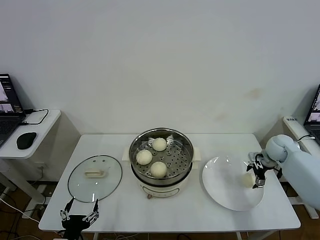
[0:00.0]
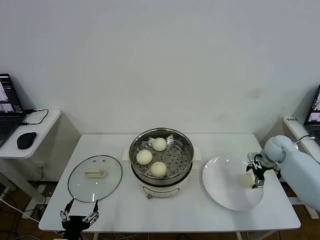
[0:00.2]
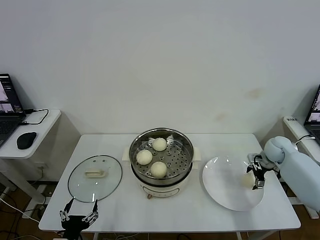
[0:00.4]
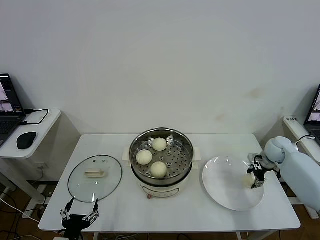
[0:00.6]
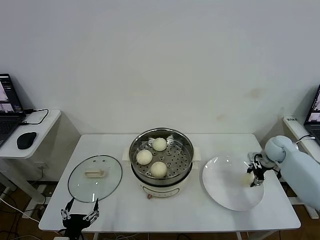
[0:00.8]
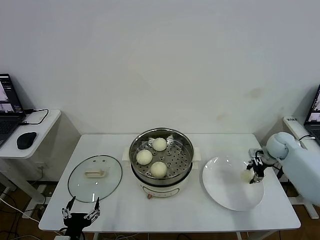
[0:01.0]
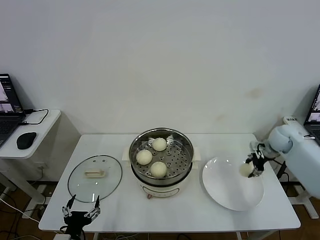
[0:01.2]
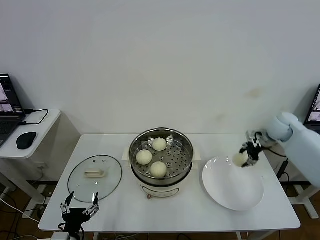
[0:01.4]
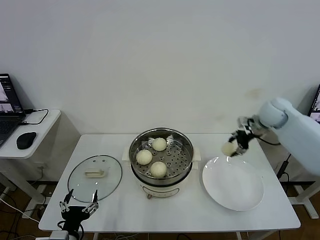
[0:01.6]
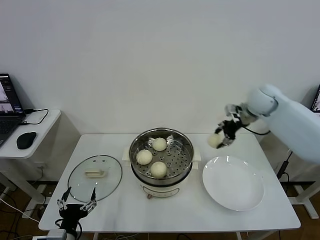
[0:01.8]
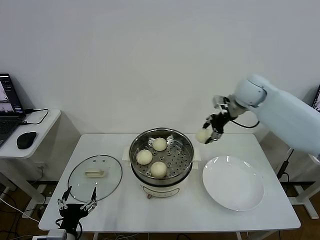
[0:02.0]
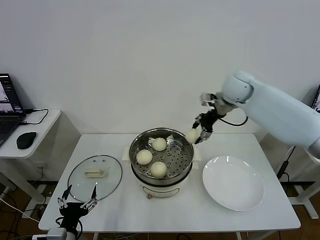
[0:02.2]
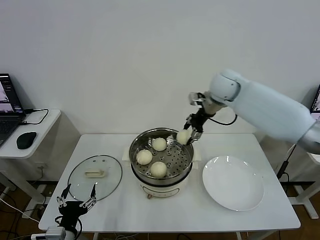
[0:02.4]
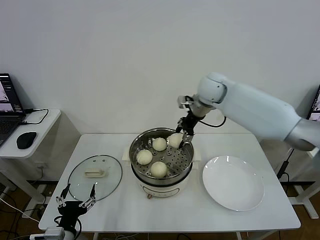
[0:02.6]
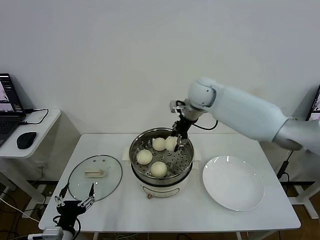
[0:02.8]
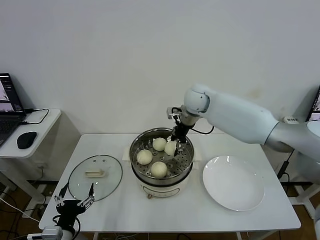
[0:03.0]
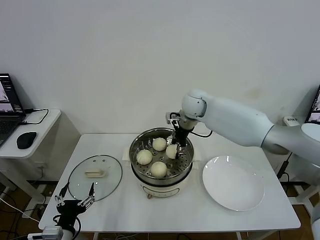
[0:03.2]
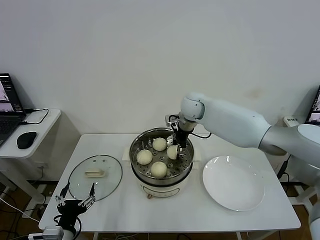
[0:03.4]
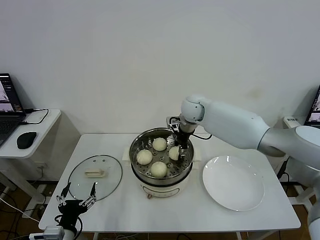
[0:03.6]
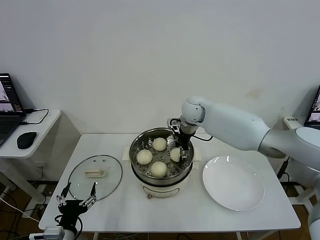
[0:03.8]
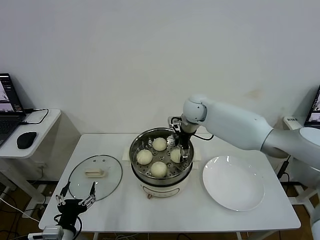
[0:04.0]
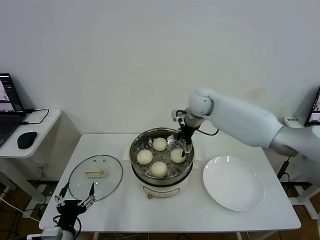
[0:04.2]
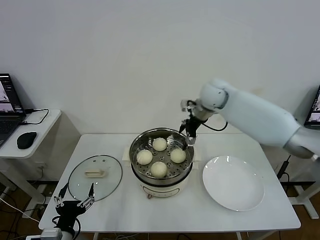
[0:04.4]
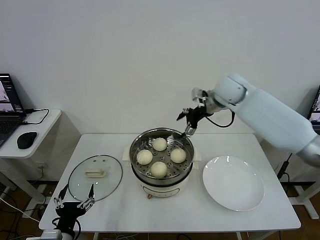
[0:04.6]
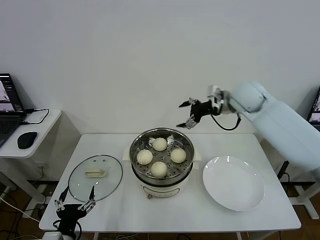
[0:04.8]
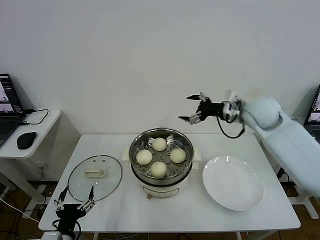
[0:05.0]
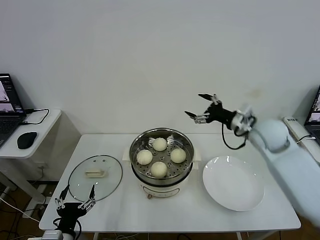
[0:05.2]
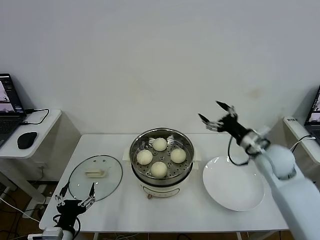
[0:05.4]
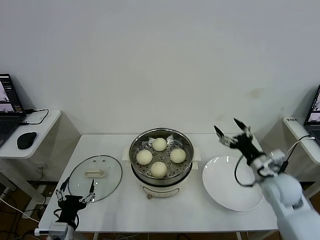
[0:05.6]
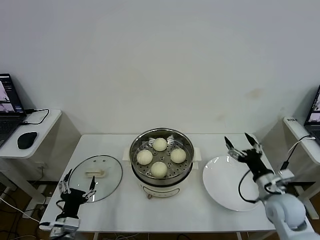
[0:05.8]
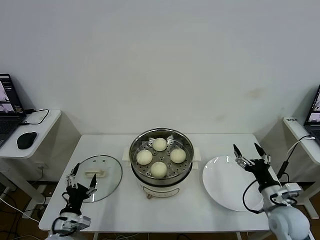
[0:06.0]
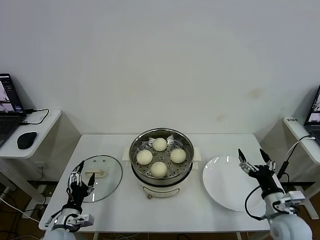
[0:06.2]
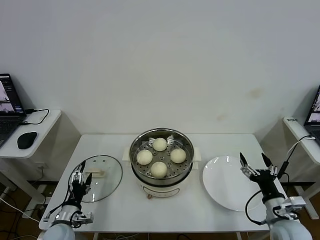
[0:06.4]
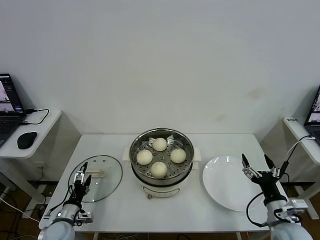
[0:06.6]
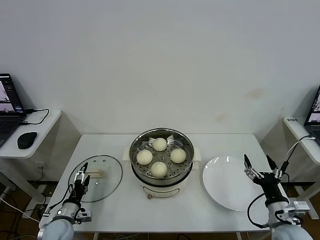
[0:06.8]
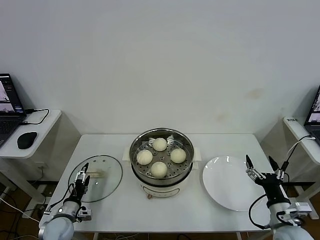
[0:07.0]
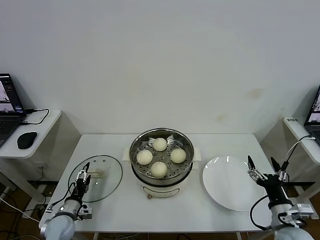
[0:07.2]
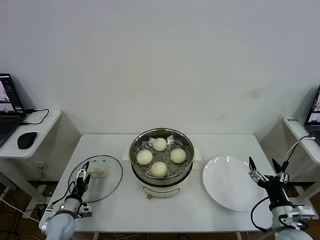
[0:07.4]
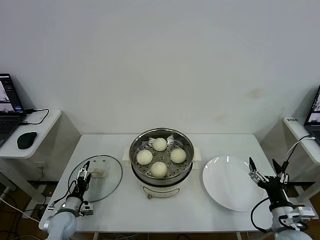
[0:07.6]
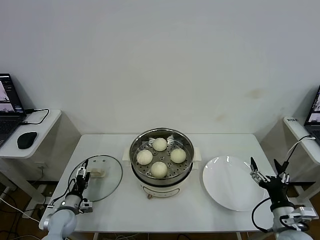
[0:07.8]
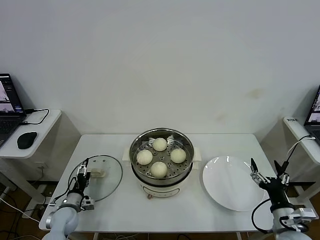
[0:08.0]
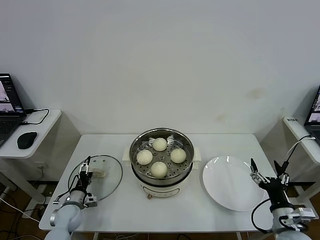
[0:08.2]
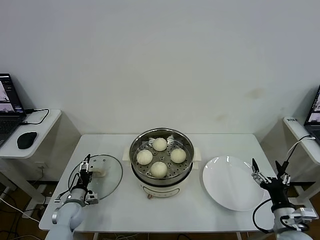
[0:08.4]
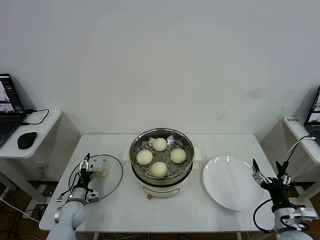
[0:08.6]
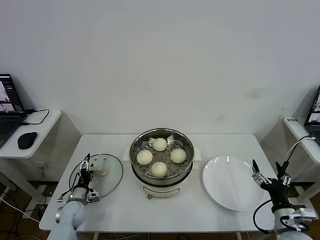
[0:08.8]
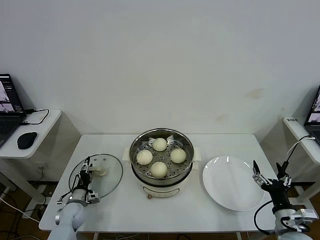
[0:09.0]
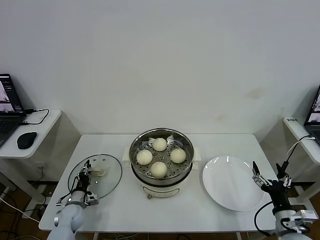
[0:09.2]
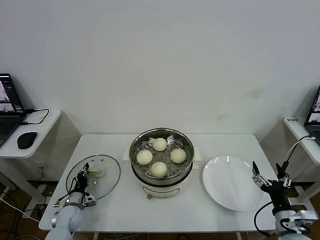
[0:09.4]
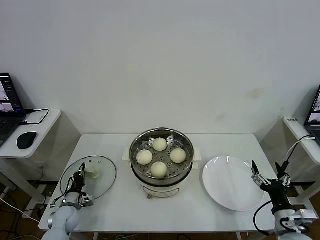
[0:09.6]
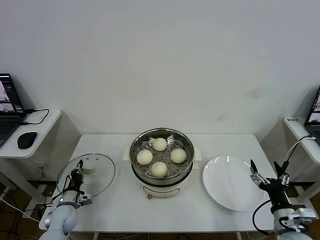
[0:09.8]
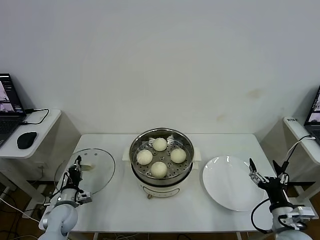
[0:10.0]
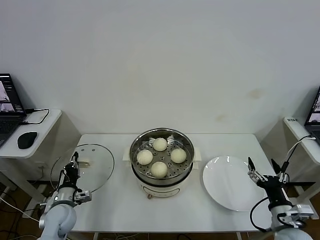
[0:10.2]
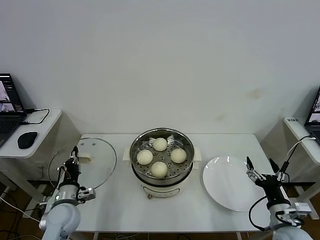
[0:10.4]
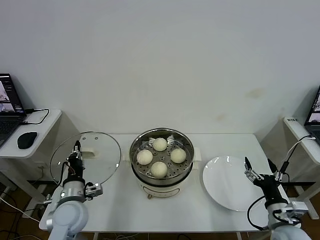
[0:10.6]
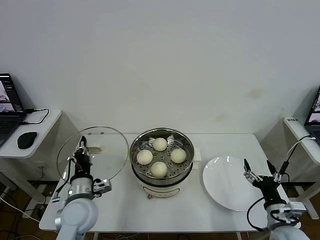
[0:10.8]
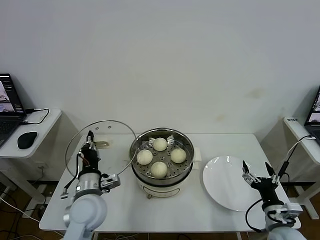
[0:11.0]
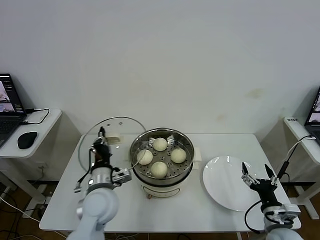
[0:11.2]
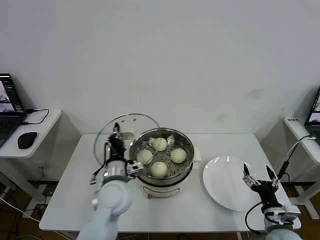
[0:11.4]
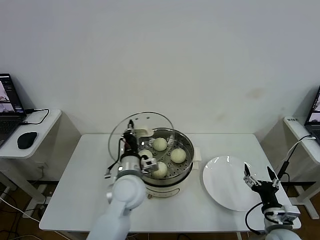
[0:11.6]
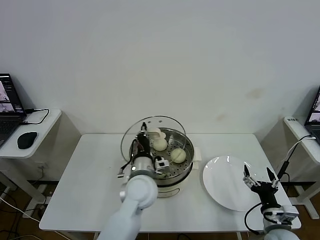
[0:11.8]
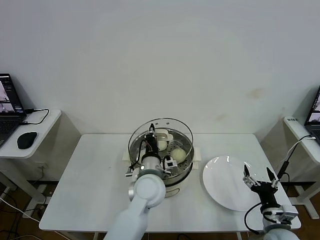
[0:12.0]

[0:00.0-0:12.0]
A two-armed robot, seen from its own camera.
Step, 0:01.0 to 0:04.0: Place the baozi on the steamer with right gripper.
Step, 0:04.2 to 0:09.6: Grasp the pot lid with left gripper.
0:00.0 to 0:01.6: The right gripper travels upward and to the left by roughly 15 cm, and closes.
0:01.6 to 0:03.0: The right gripper travels to the left by roughly 25 cm.
0:03.0 to 0:04.4: The right gripper shifts approximately 5 cm to the right, and opens up.
0:04.4 to 0:06.0: The left gripper moves forward, about 5 cm, while the right gripper shifts roughly 40 cm backward, downward and to the right.
0:06.0 to 0:07.6: The left gripper is displaced forward, downward and to the left by about 15 cm; the right gripper heads backward, covering some 5 cm.
0:07.6 to 0:09.0: The left gripper moves approximately 5 cm.
0:09.0 to 0:10.4: The left gripper moves upward and backward, about 15 cm, and closes its fingers.
0:10.4 to 0:12.0: The left gripper shifts about 30 cm to the right.

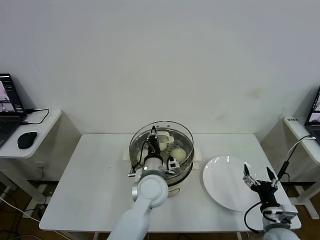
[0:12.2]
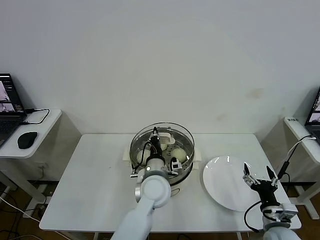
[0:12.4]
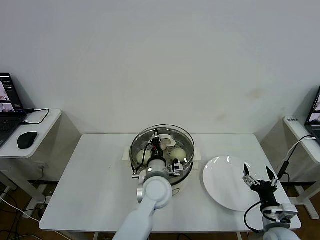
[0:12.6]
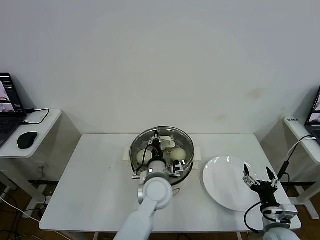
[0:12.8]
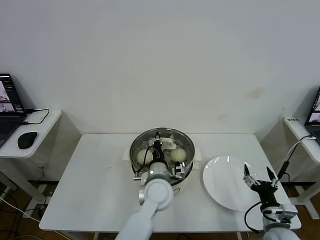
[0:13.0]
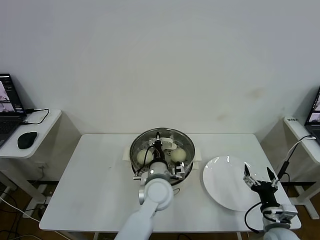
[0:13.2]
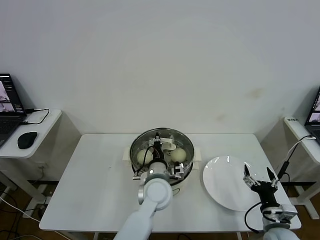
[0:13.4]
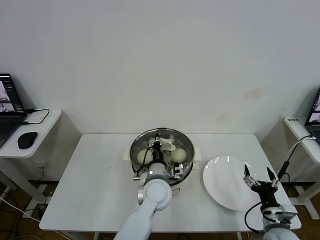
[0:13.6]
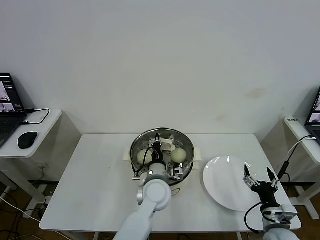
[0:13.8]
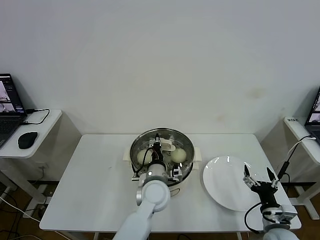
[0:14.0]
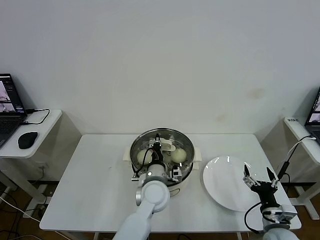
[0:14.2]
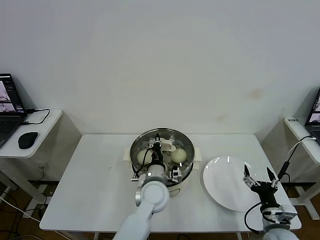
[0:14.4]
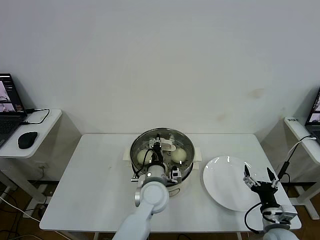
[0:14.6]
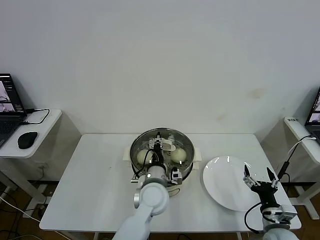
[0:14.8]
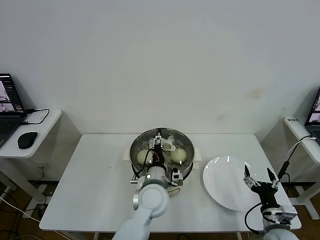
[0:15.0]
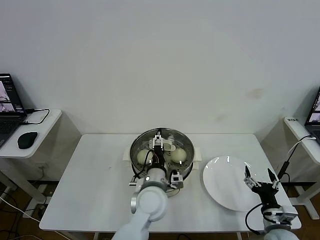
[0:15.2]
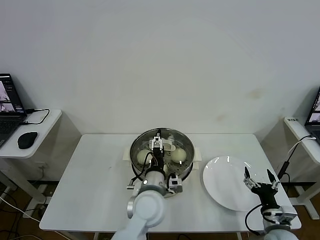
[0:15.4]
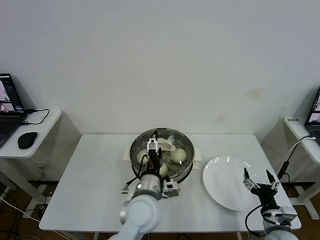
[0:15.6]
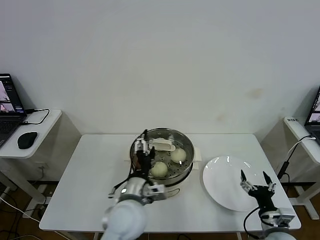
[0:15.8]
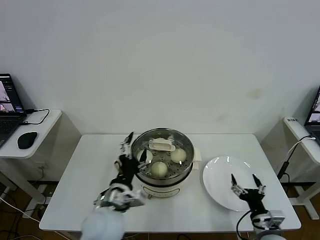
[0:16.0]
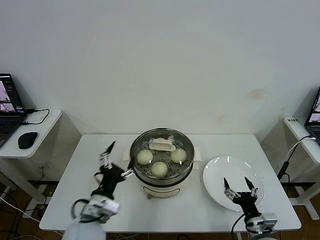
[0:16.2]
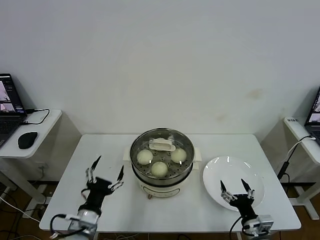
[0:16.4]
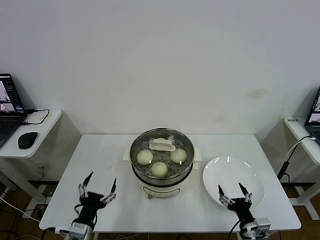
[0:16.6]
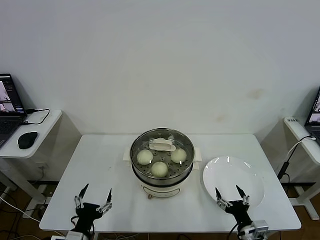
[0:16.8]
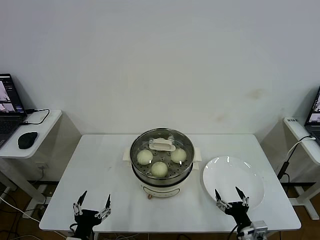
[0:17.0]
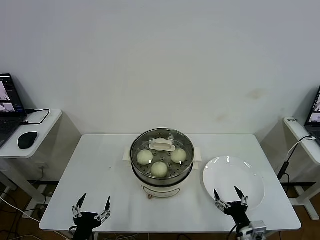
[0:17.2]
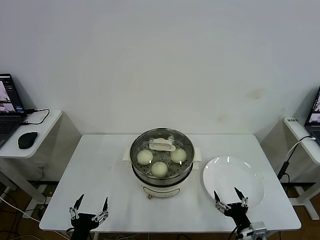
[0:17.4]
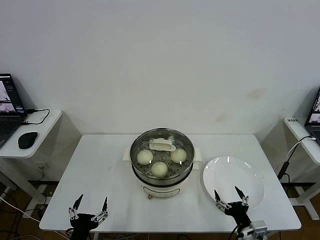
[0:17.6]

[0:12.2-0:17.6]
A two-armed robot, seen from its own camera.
Step, 0:12.2 to 0:14.8: Place the pot lid on the steamer with left gripper.
0:12.2 to 0:13.6: The grippers stay close to where they were, moving slightly.
0:13.6 to 0:15.0: The left gripper opens up.
0:15.0 to 0:16.2: The left gripper is displaced to the left and backward by approximately 20 cm, and opens.
0:16.2 to 0:17.6: The left gripper travels backward, downward and to the left by approximately 15 cm.

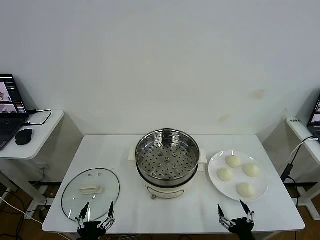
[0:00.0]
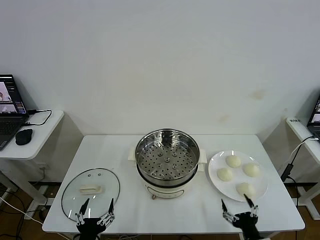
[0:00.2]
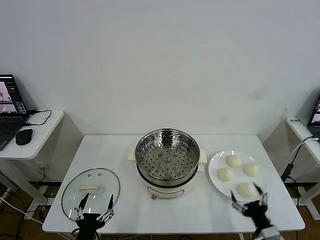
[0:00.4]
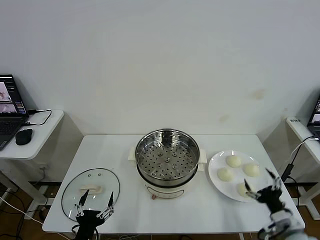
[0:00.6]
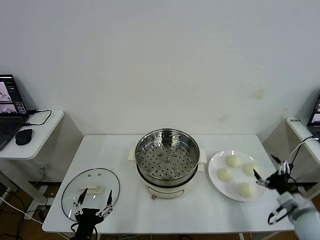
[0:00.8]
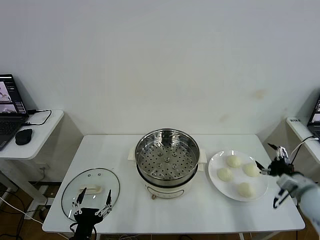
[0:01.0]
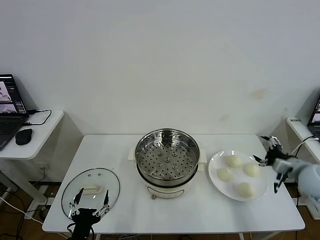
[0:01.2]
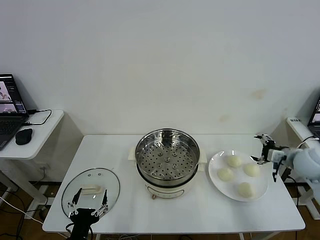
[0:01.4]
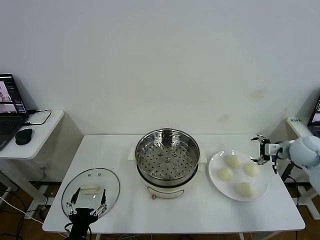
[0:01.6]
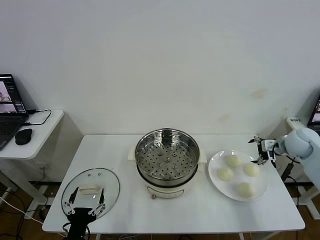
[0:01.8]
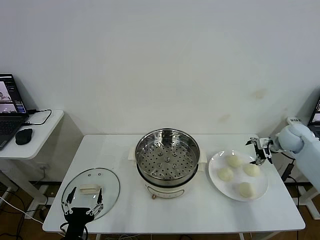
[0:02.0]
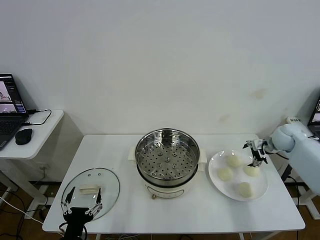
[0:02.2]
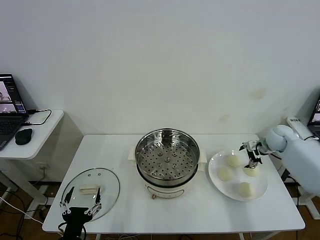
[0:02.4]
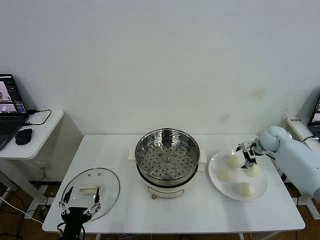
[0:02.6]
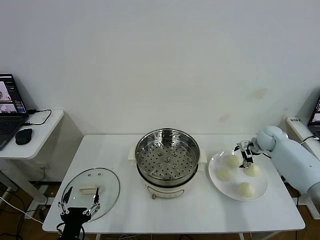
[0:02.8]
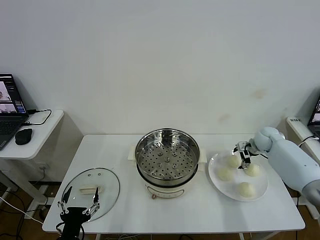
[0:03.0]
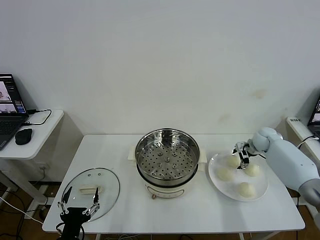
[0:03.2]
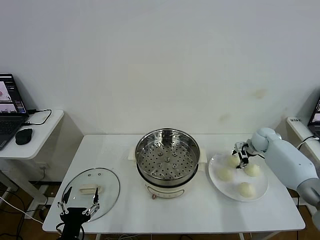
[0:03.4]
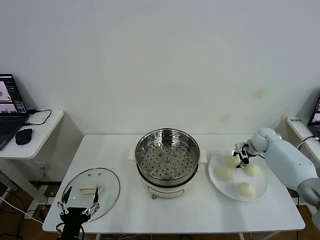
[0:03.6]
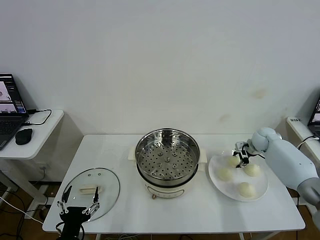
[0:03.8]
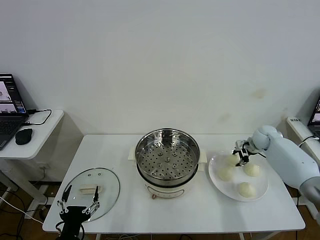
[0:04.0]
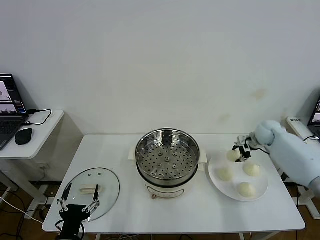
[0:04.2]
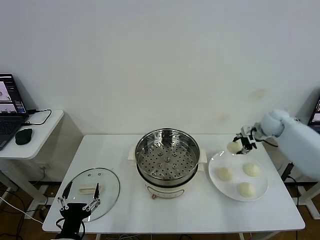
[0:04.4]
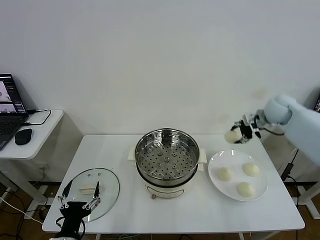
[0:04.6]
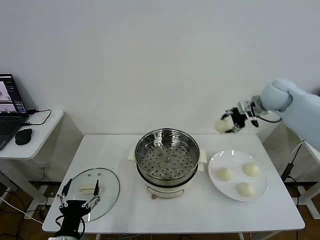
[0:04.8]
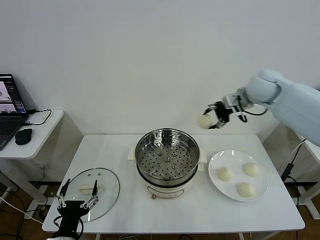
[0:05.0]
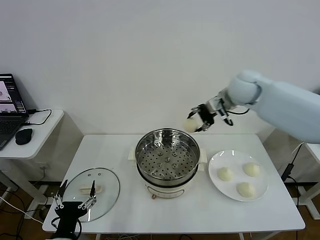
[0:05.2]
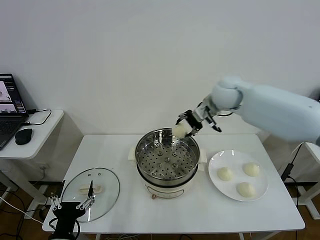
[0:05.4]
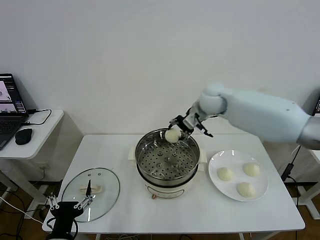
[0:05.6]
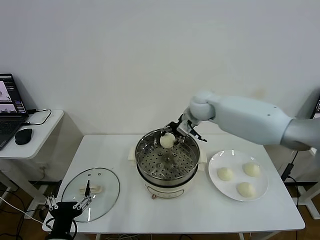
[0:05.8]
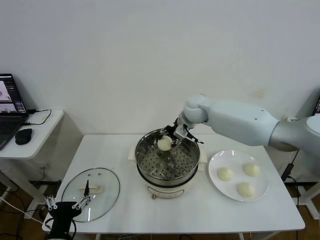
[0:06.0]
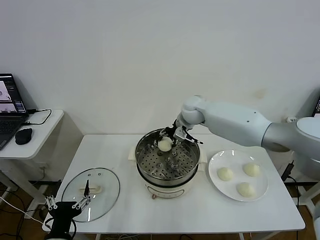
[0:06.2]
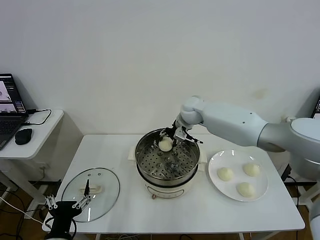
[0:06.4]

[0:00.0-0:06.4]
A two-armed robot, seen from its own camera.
Step, 0:00.0 to 0:03.4: Grasp the baozi in the plate with right gripper.
0:01.6 to 0:03.2: The right gripper shifts some 15 cm forward and downward.
0:03.2 to 0:04.8: The right gripper heads upward and to the left, covering roughly 25 cm, and closes its fingers.
0:04.8 to 0:06.4: The right gripper goes about 25 cm to the left and downward.
